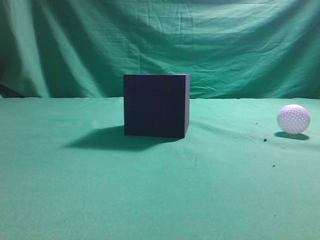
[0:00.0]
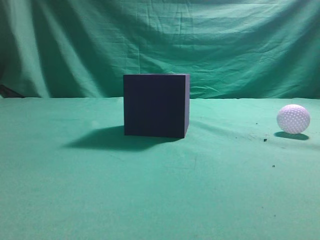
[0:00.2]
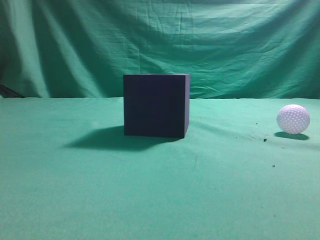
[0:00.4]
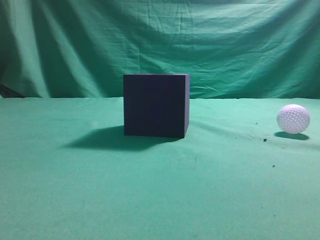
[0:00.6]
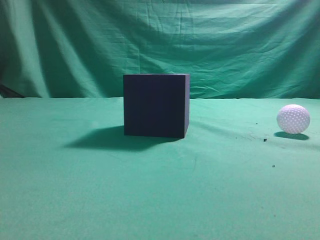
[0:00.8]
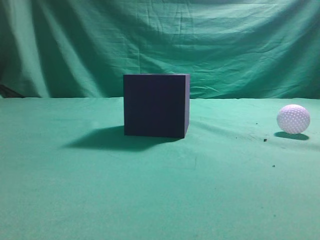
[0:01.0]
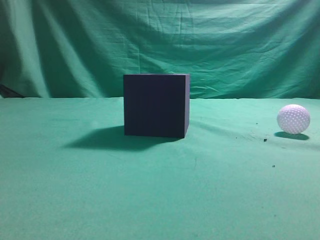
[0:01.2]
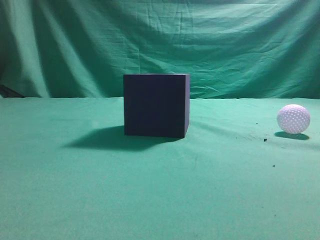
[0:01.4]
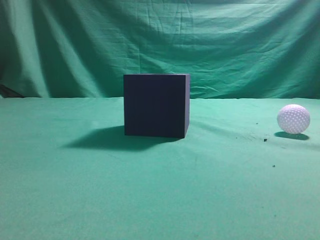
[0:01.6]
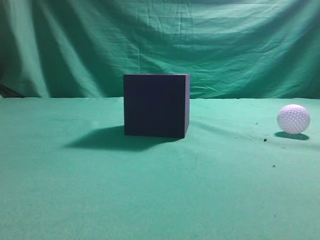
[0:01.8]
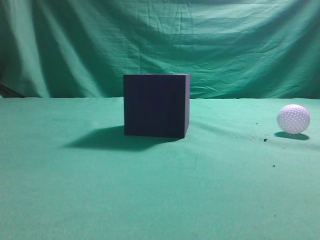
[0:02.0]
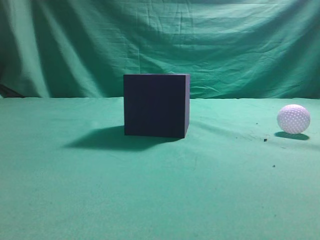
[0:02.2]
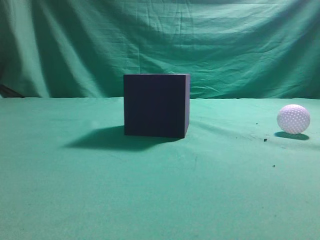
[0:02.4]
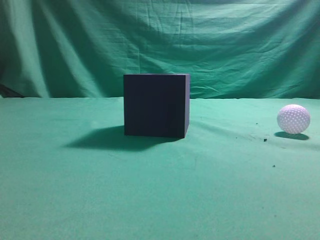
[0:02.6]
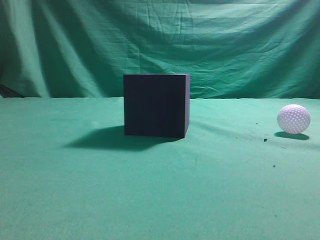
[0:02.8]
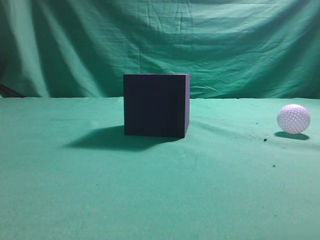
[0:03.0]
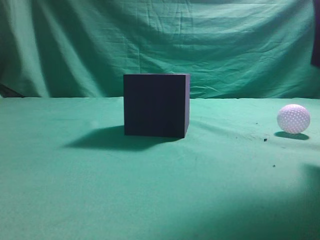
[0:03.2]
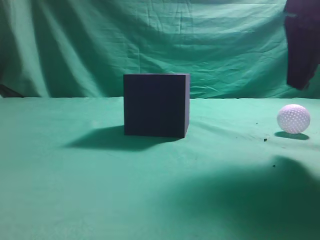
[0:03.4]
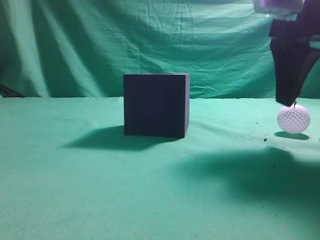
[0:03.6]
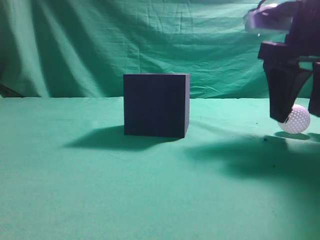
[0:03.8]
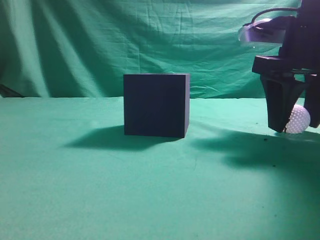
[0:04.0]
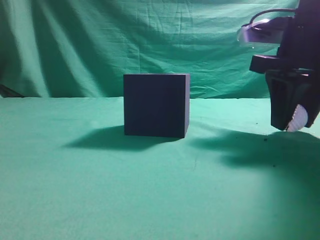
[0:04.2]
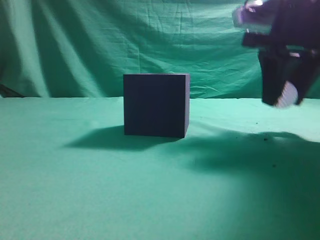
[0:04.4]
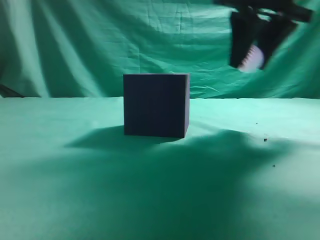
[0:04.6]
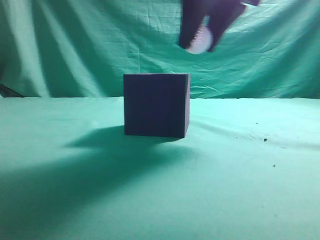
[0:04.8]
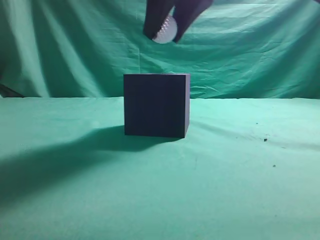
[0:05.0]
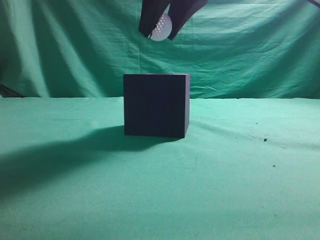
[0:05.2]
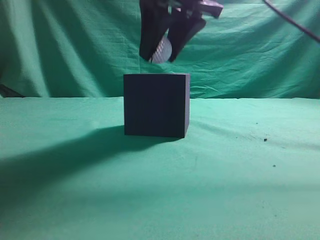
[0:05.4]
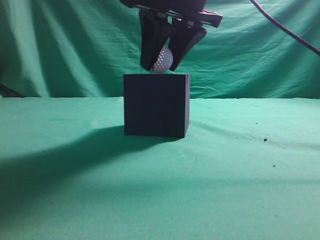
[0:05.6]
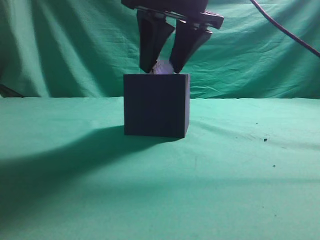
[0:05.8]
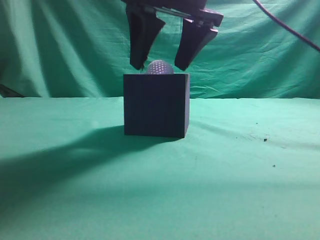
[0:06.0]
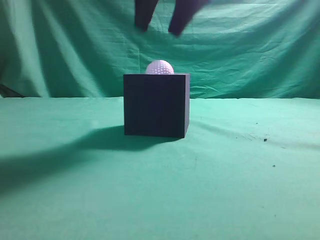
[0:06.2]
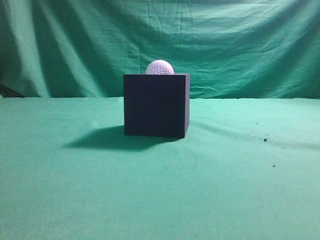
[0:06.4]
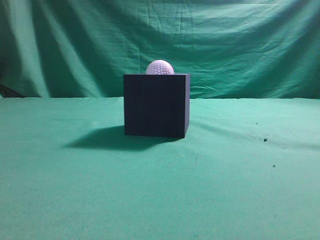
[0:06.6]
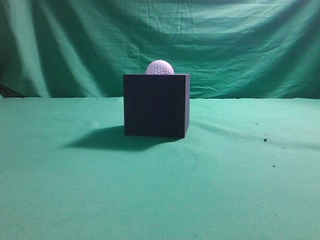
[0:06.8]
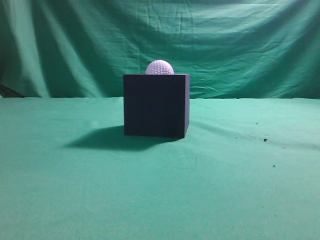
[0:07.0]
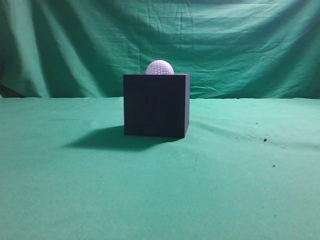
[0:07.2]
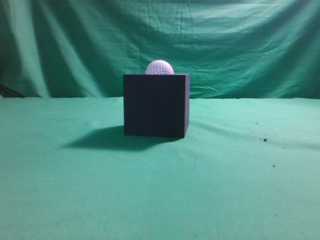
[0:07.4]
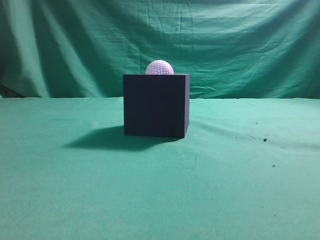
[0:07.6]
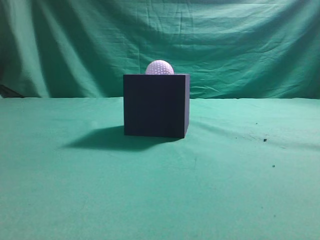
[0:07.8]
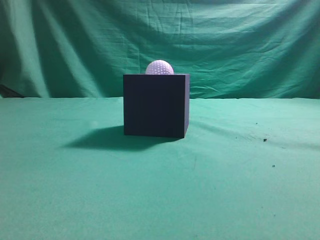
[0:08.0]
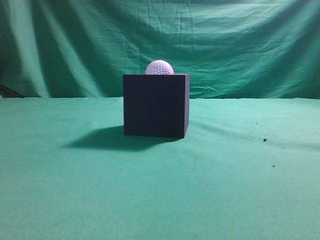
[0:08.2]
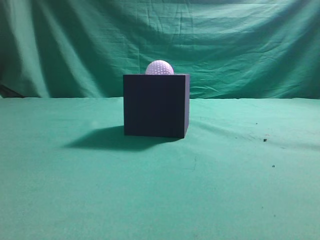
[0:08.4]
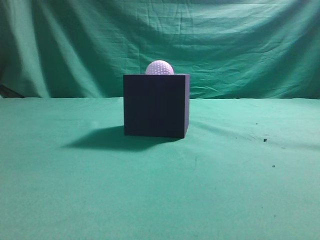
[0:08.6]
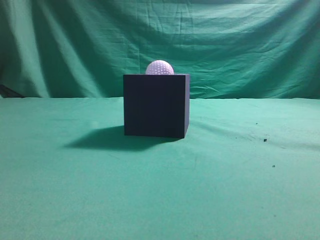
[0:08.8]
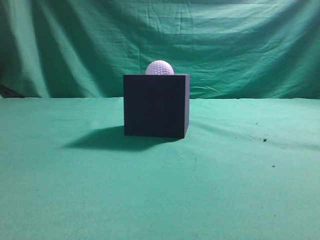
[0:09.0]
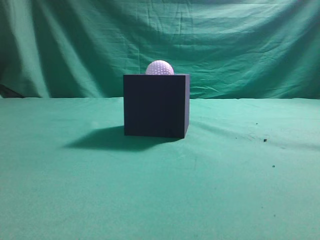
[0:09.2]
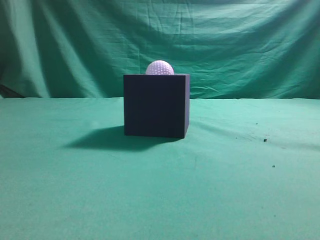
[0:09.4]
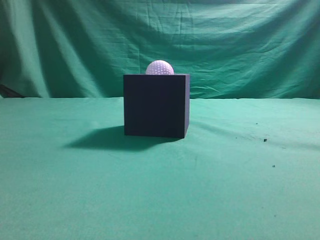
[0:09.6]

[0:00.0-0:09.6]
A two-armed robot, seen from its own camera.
Task of the whole recording: Pick up the ball and place it in the circular groove above the cube.
Step, 0:00.0 to 0:04.4: Grasp the sphere on the table.
Step, 0:04.6 to 0:06.0: Place the sphere into the sphere-shaped recess.
0:01.6 to 0:03.2: The right gripper is displaced forward and to the left by some 20 cm, and opens.
0:03.2 to 0:04.8: The right gripper shifts about 15 cm to the left and forward, and opens, then closes again.
0:04.8 to 0:06.4: The right gripper moves upward, approximately 10 cm, and closes up.
